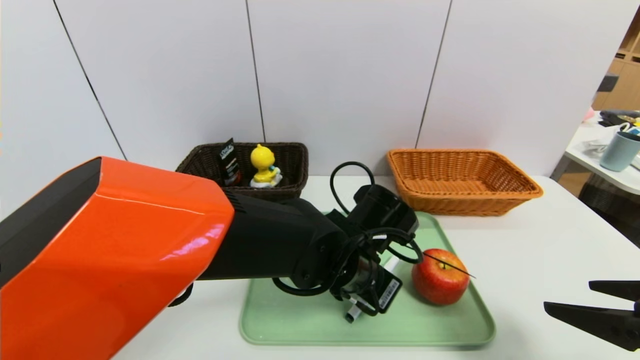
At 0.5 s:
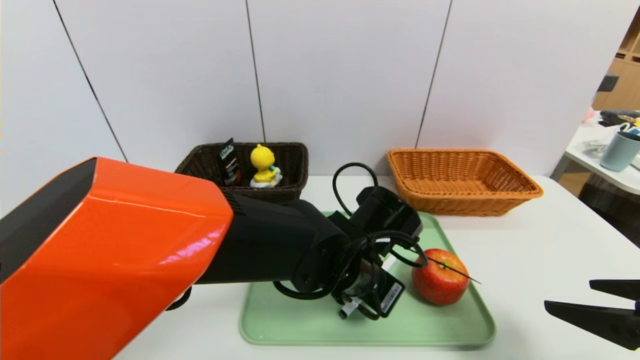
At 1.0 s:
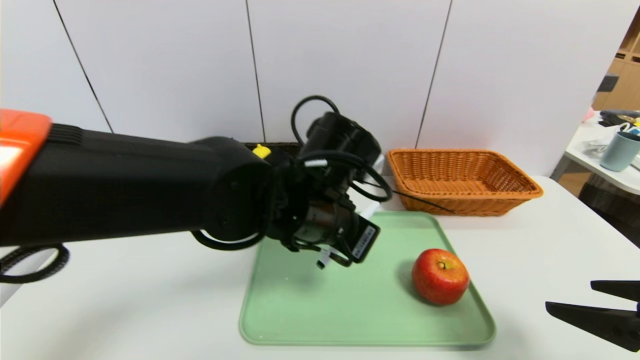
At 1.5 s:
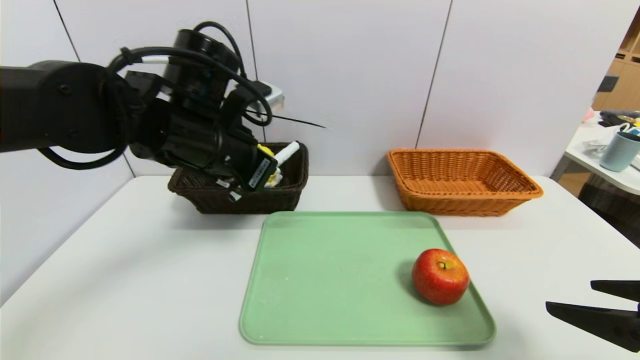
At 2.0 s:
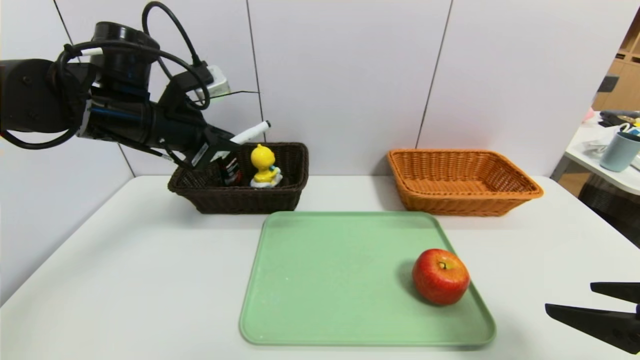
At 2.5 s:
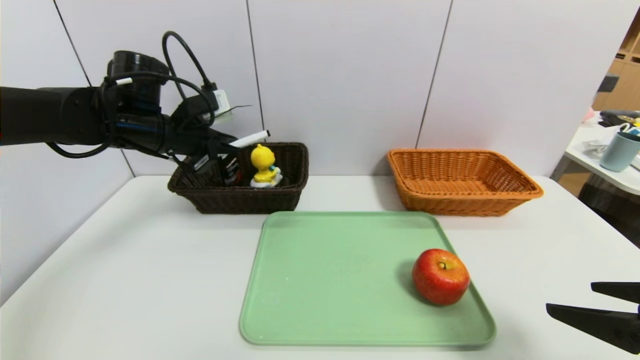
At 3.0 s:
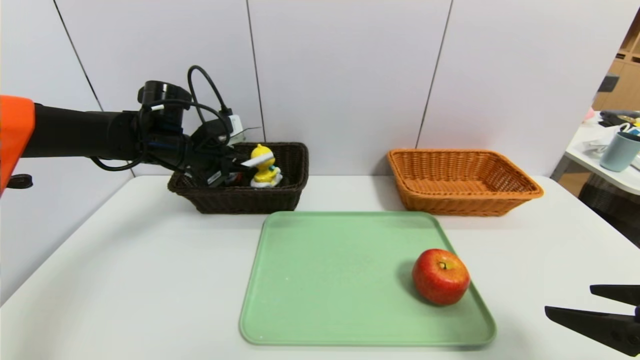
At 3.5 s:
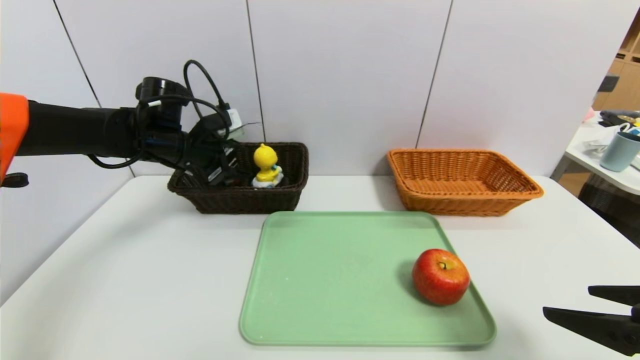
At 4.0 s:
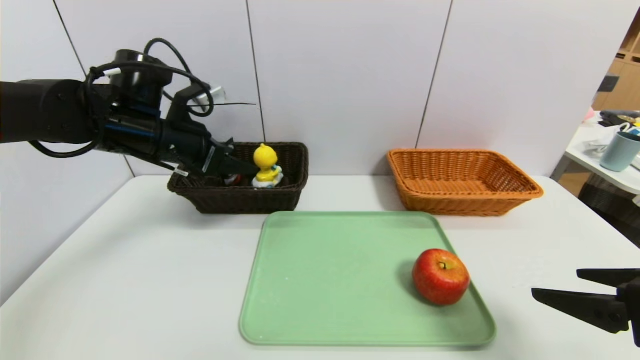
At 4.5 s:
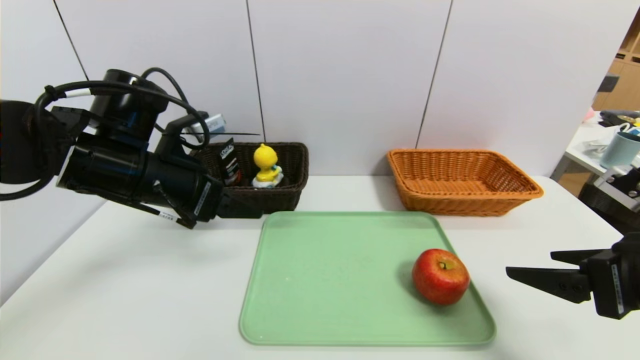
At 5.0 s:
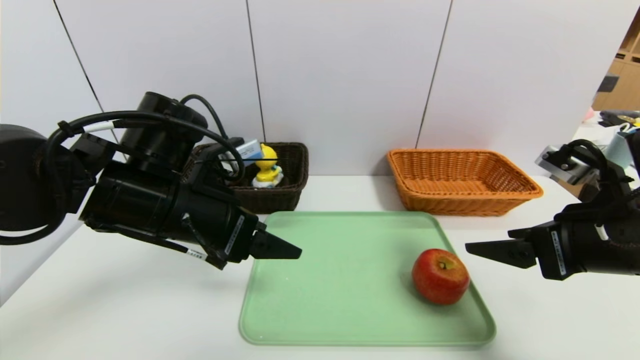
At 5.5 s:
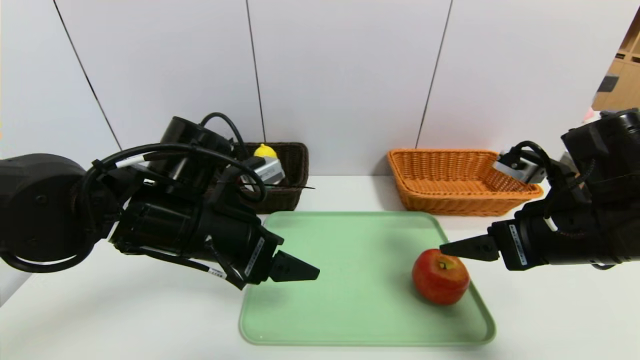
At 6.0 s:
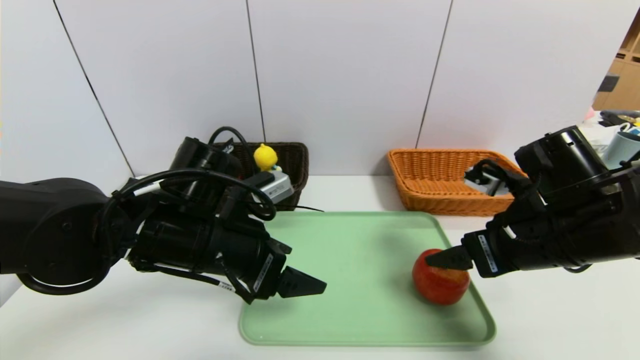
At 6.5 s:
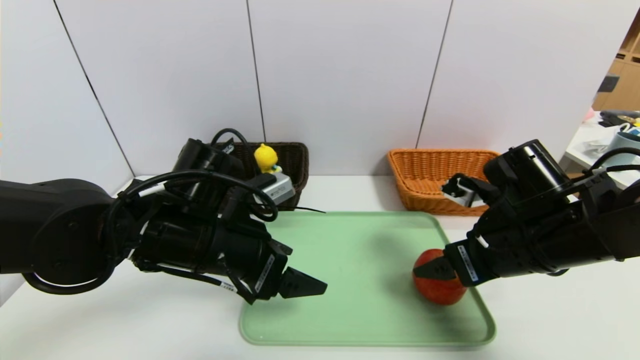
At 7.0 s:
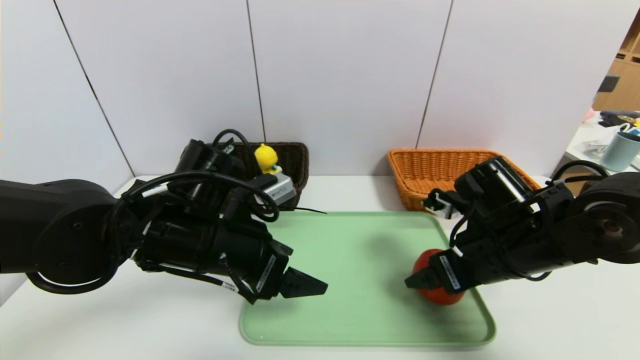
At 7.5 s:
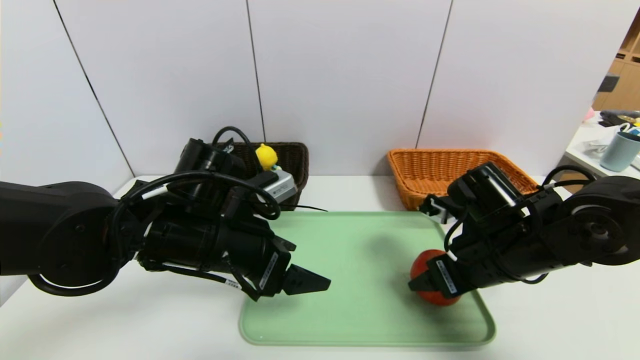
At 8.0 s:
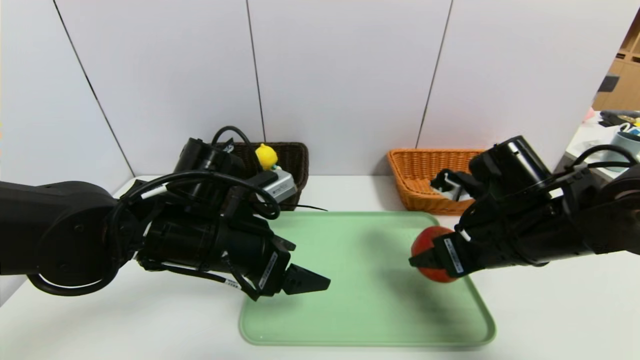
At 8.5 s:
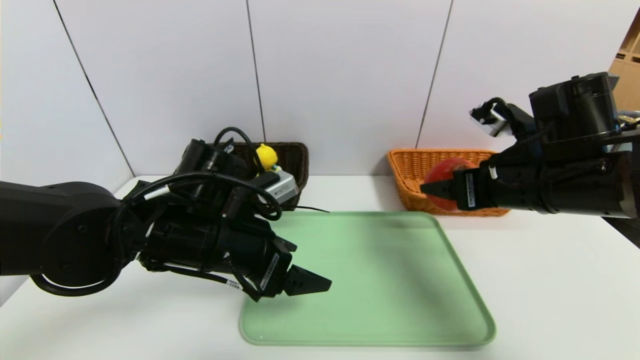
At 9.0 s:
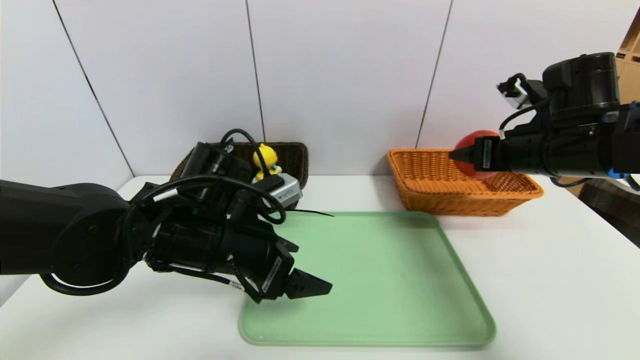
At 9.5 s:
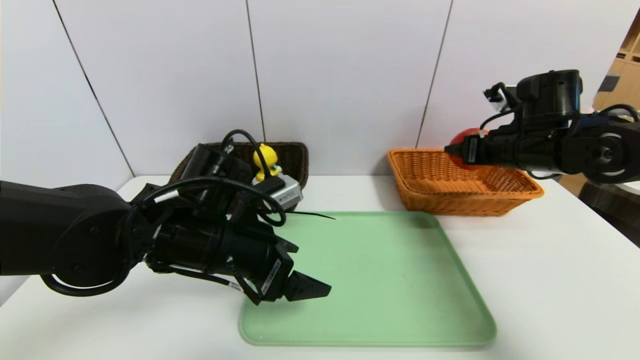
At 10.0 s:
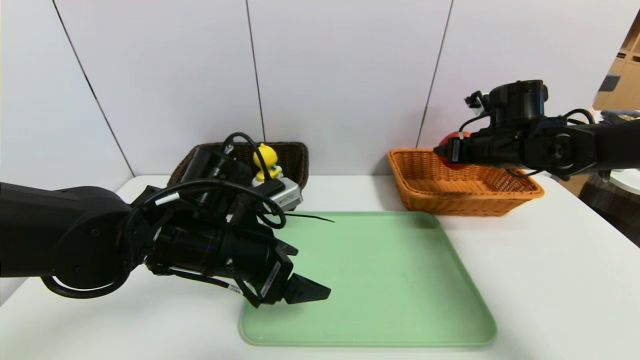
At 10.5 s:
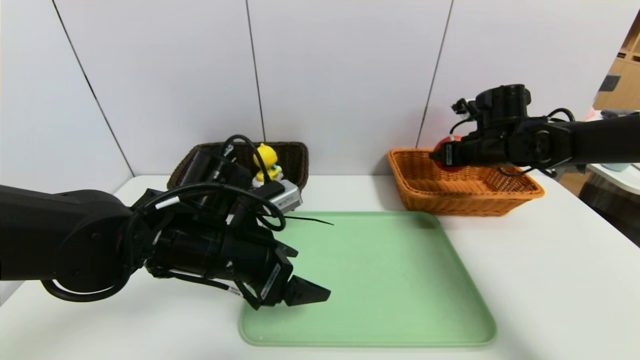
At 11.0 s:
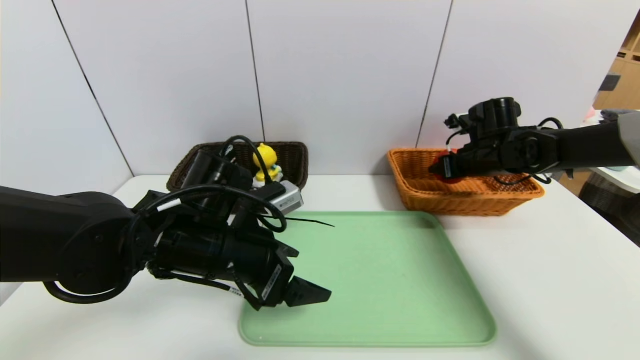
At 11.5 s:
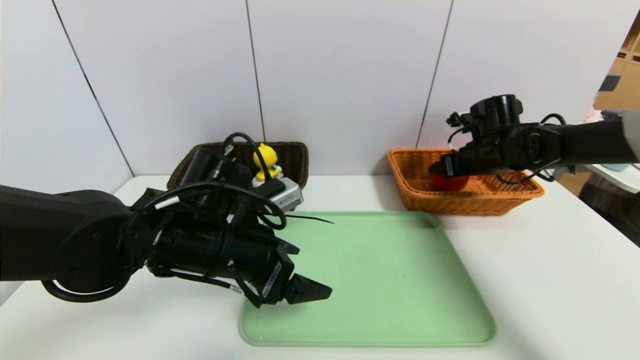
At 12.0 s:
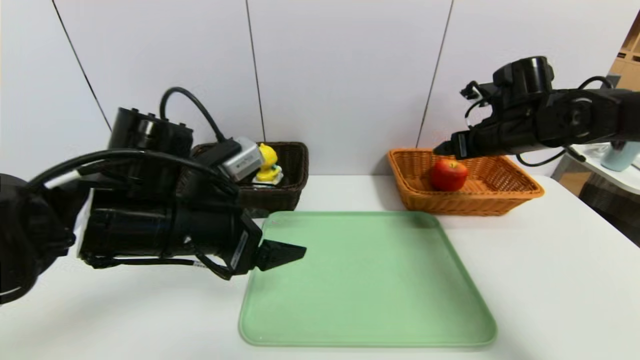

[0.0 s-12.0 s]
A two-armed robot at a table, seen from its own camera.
Task of the whole recording: place the food in the right basket with the right gripper, and place the non food items in the left basket with the left gripper.
Step, 0.0 to 4.0 s: Grasp the black marker and put it in the left basket.
0.0 to 2.0 s: The left gripper shifts roughly 30 cm to the left and upward, and closes.
2.0 to 4.0 s: The left gripper reaches approximately 10 cm forward, then returns, and opens its fingers.
4.0 to 6.0 s: The right gripper goes approximately 15 cm forward and to the left. The left gripper is displaced backward, to the right and downward by roughly 15 cm.
6.0 to 8.0 s: The right gripper closes its fingers.
8.0 to 10.0 s: The right gripper moves forward and to the right, about 20 cm.
10.0 to 12.0 s: The left gripper moves some 5 cm, while the right gripper opens.

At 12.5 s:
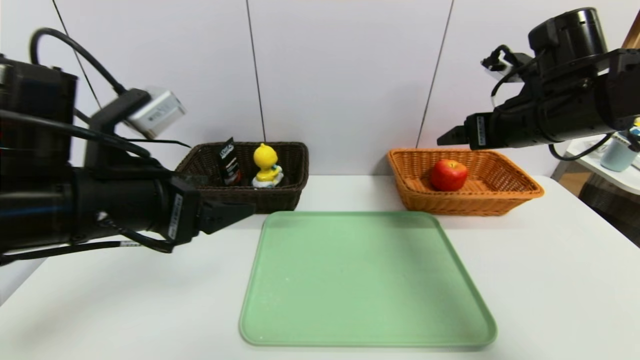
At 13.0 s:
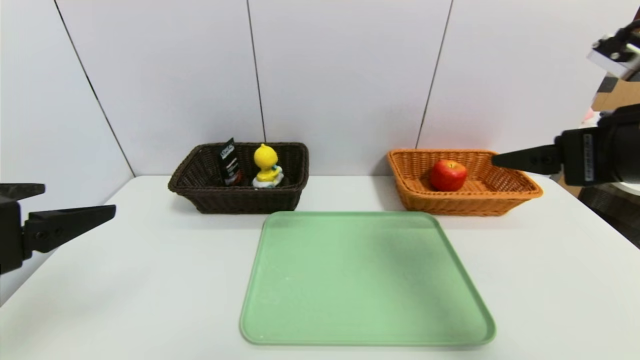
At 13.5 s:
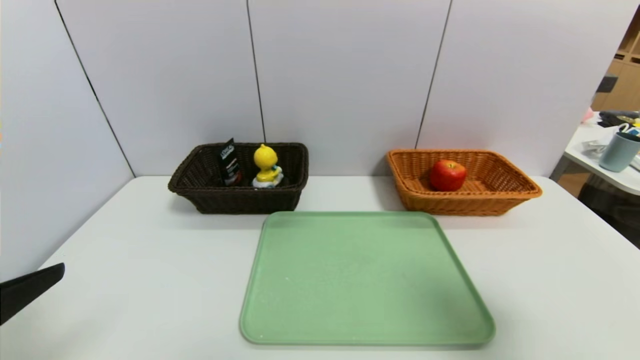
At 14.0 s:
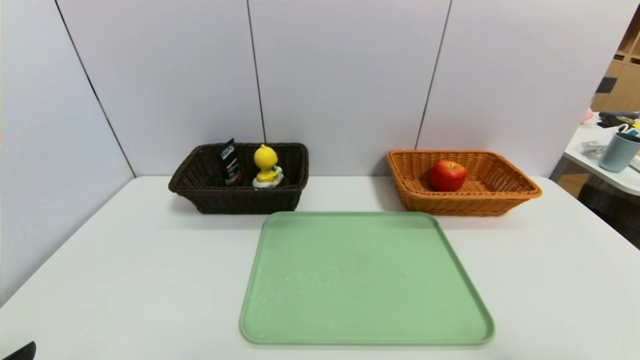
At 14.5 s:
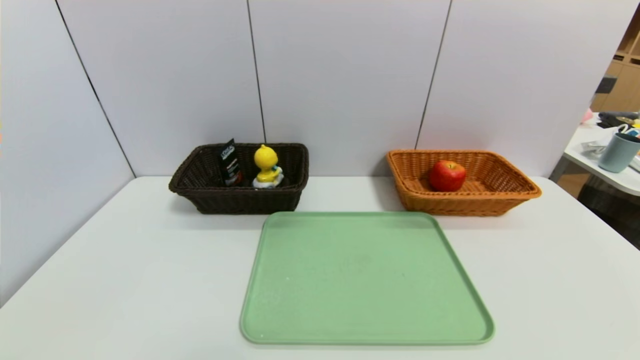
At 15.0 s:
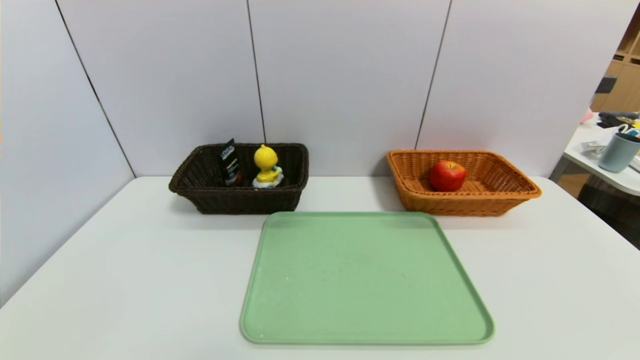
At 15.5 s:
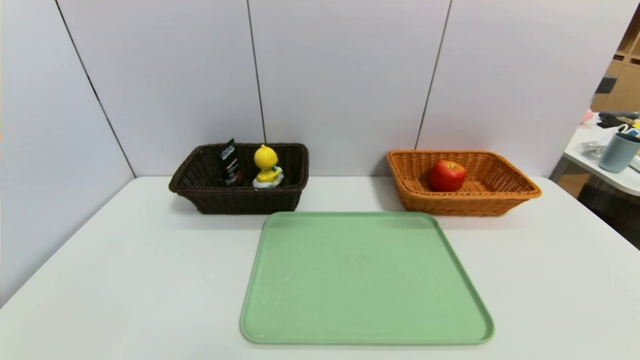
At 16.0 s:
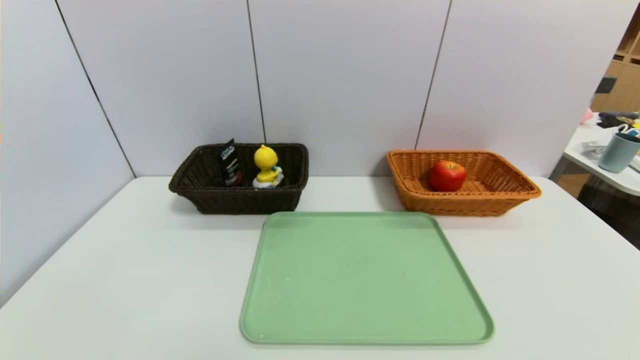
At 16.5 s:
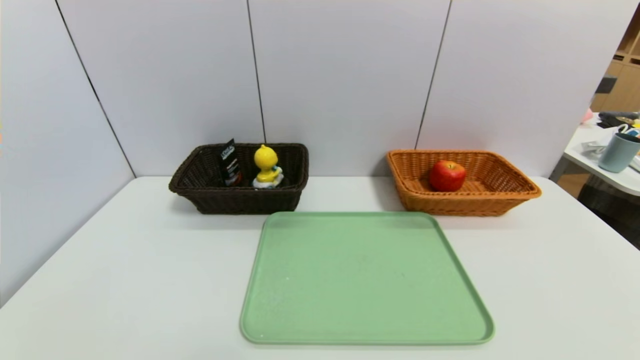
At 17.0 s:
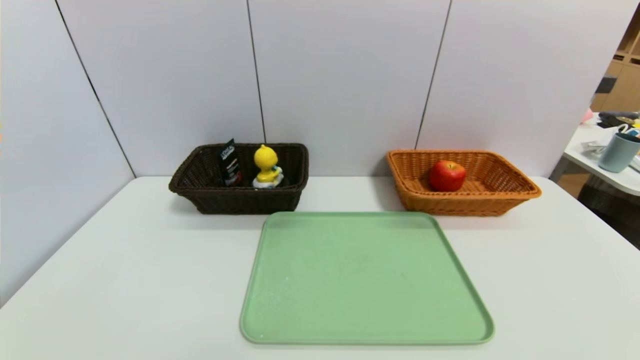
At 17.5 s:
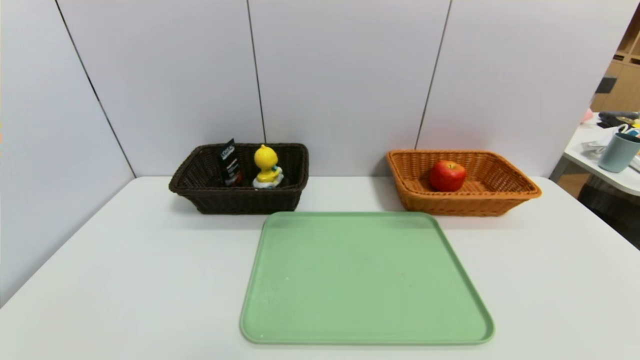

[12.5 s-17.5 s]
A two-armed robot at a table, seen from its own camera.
Task of the whole recording: place the food in the right basket with the right gripper, and place the non food items in the left basket with the left gripper.
12.5 to 15.0 s: The right gripper travels backward by roughly 35 cm; the left gripper goes about 25 cm backward, downward and to the left.
